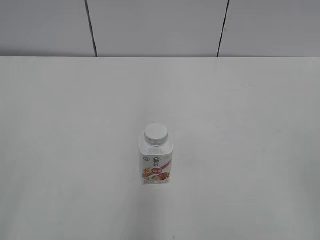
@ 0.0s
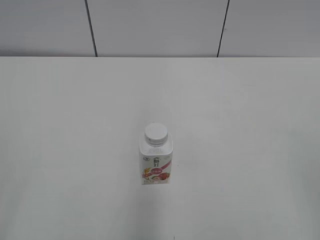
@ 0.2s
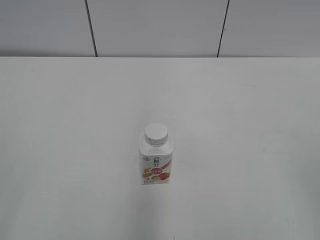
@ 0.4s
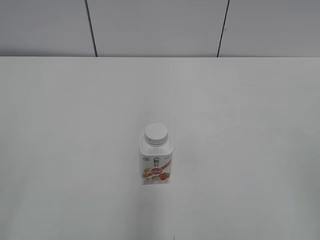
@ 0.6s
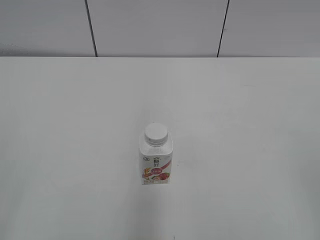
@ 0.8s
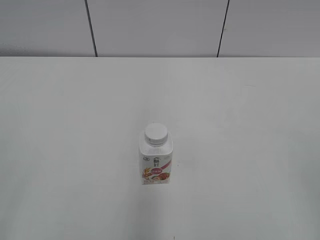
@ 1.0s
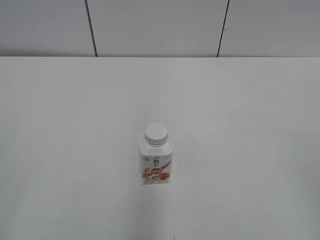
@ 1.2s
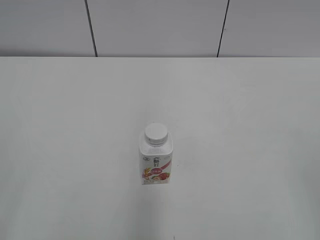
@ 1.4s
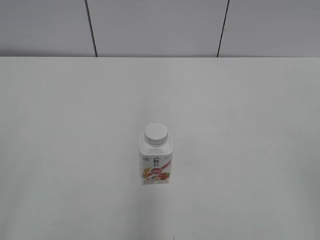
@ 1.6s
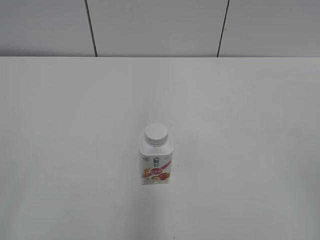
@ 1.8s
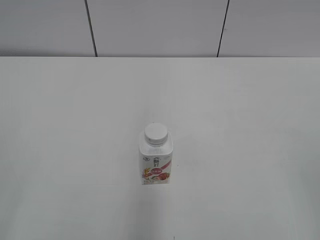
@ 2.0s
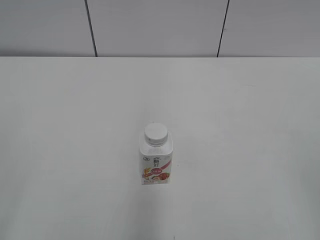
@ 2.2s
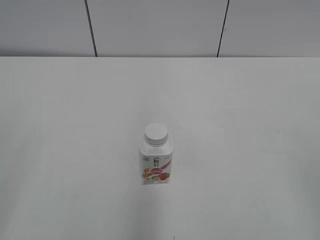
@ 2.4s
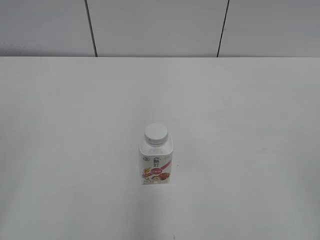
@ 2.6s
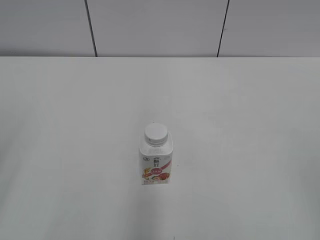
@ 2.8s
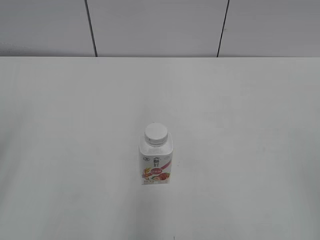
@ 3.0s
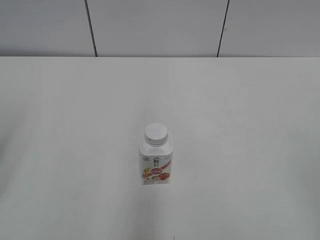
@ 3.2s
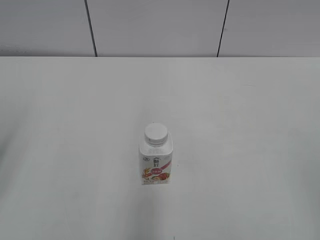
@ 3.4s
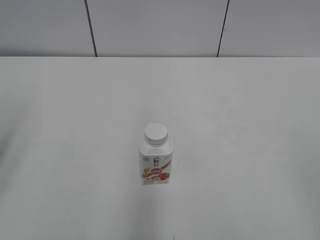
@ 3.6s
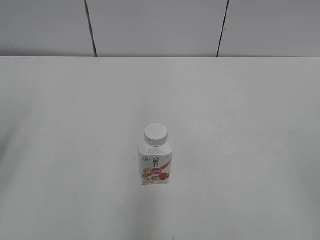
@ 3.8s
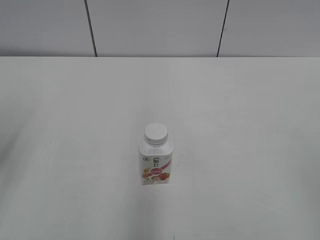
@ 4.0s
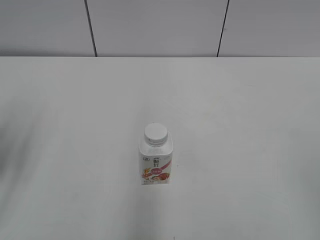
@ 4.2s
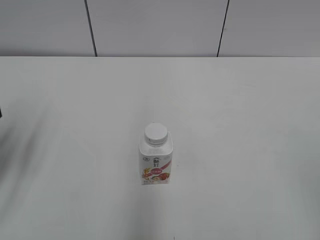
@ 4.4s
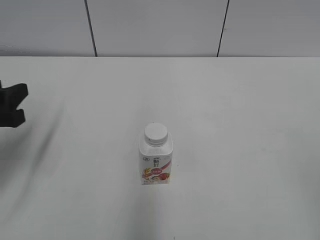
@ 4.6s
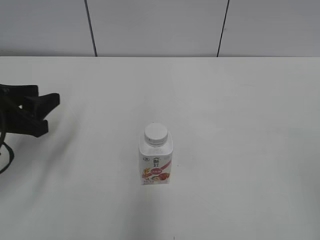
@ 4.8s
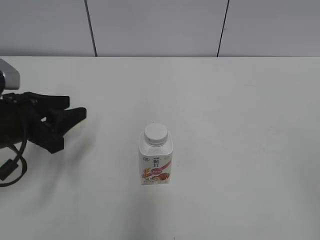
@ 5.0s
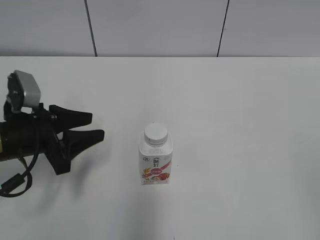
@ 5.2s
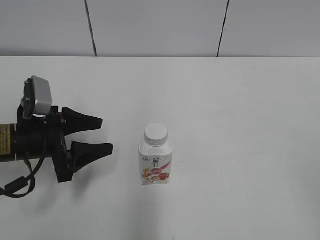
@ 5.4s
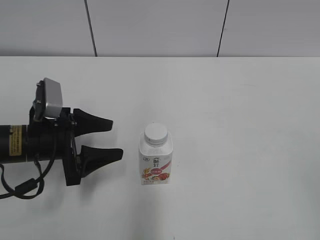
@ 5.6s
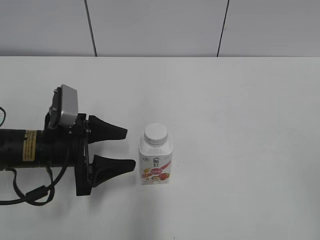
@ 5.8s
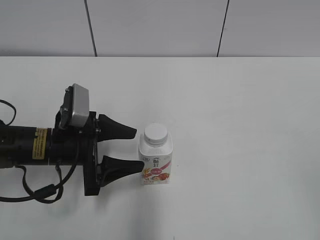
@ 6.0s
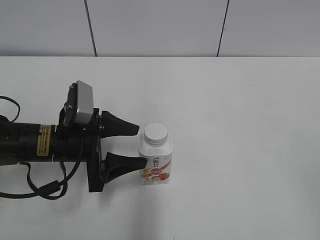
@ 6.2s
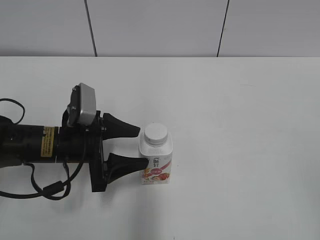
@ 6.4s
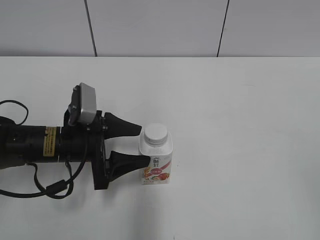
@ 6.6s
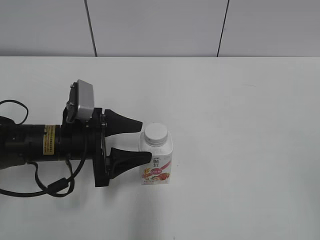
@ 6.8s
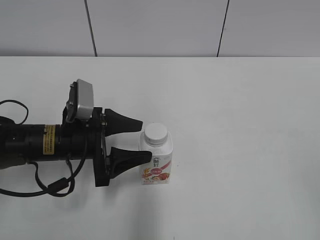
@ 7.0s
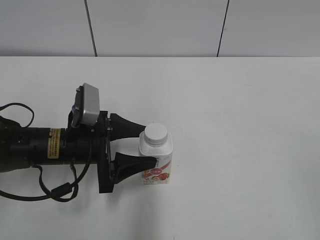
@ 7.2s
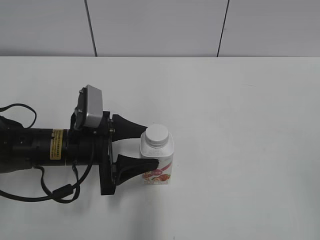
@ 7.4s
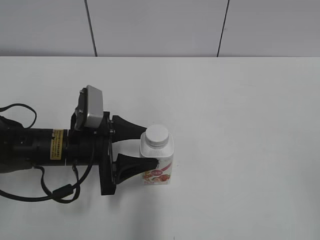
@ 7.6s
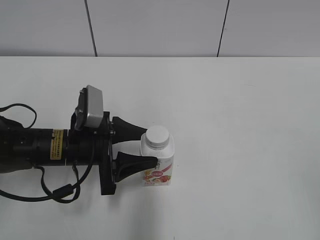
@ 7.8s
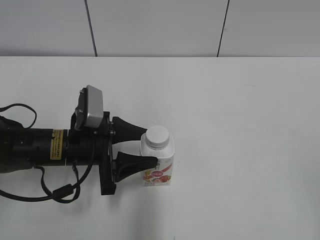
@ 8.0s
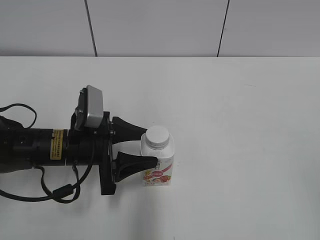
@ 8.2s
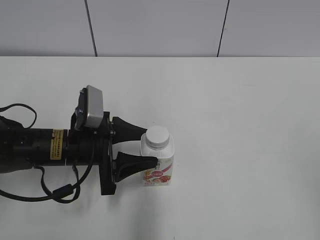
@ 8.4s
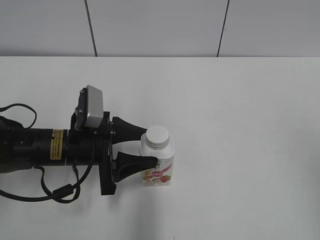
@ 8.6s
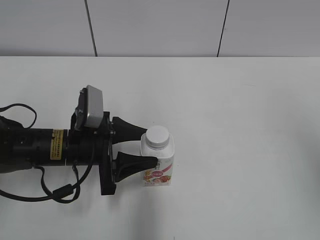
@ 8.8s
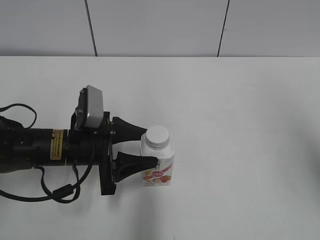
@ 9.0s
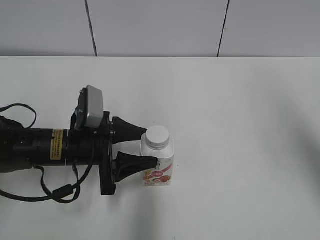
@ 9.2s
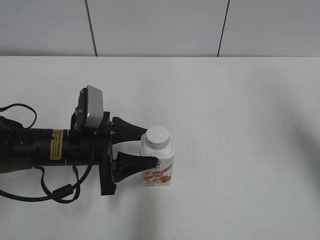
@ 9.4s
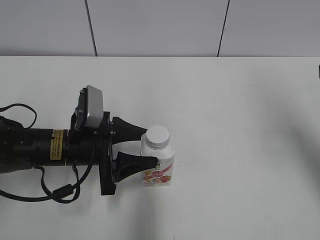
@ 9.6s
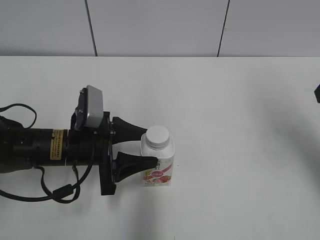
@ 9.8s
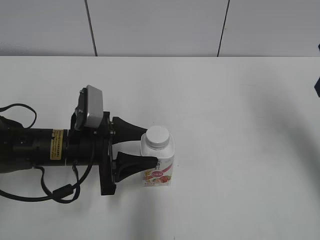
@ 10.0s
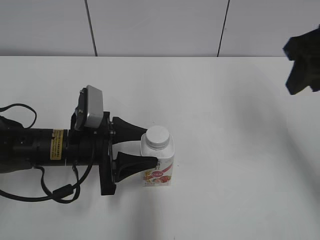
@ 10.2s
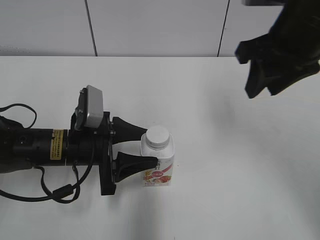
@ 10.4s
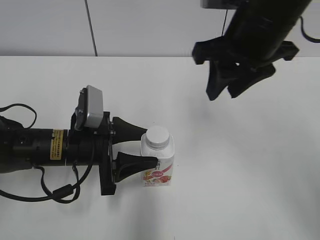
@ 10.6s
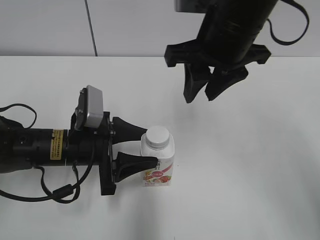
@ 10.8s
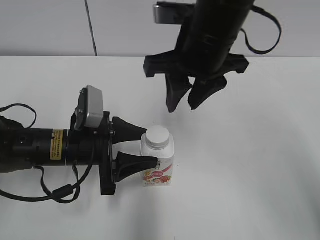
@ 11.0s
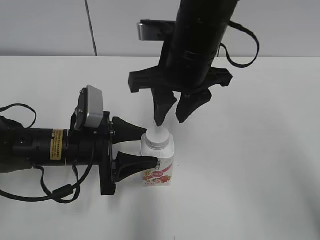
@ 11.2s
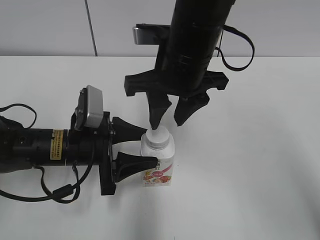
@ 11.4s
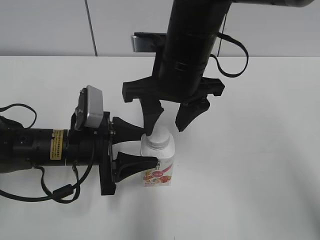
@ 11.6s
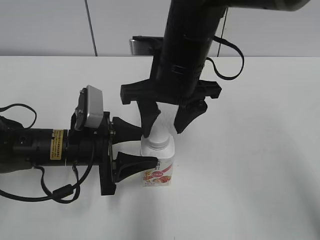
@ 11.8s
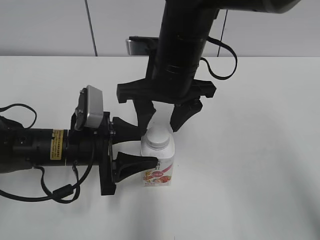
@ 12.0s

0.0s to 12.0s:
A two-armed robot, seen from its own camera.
Step, 0.0s to 8.2s: Grab the Yili Changqing with the left hand.
3.0s to 4.4s: The left gripper is displaced forward and downward by approximately 10 cm.
4.4s to 6.0s: The left gripper travels to the right, downward and forward by some 15 cm, and opens.
6.0s to 7.6s: The grippers stay close to where they were, moving slightly.
7.6s to 9.0s: The right gripper goes approximately 20 cm forward and upward, and closes its fingers.
9.0s to 10.4s: The right gripper travels forward, to the left and downward by about 20 cm, and closes up.
10.4s to 12.0s: The right gripper shifts about 15 cm to the left and downward, and opens up.

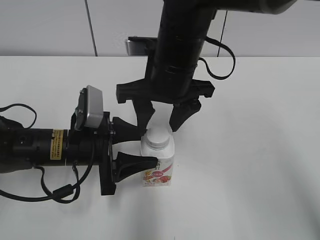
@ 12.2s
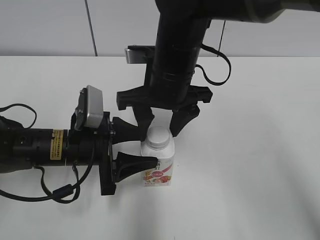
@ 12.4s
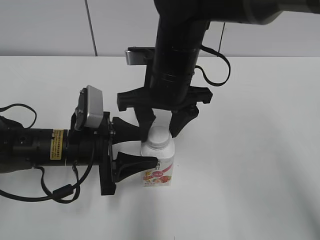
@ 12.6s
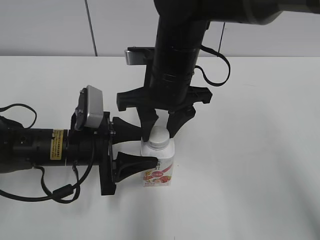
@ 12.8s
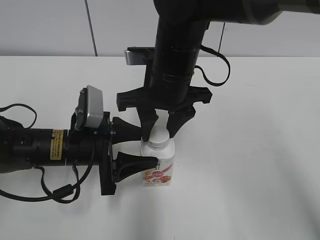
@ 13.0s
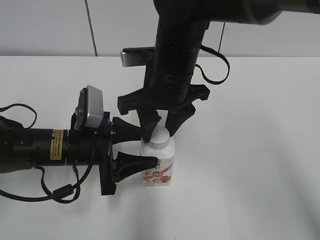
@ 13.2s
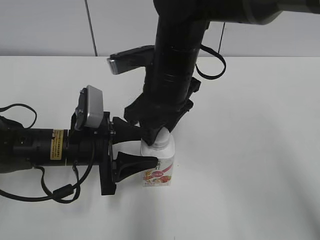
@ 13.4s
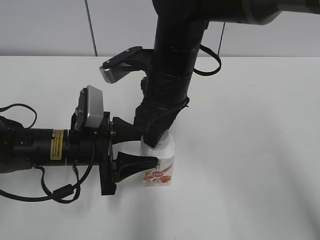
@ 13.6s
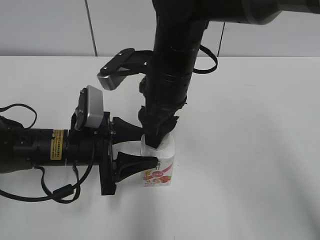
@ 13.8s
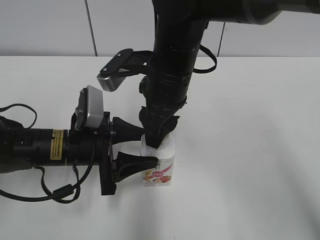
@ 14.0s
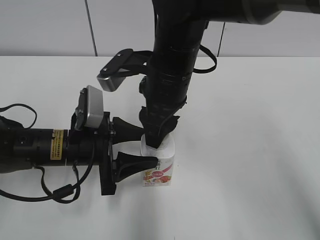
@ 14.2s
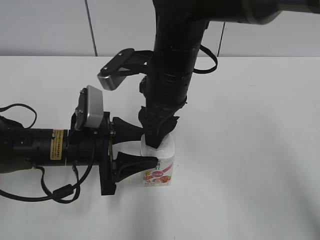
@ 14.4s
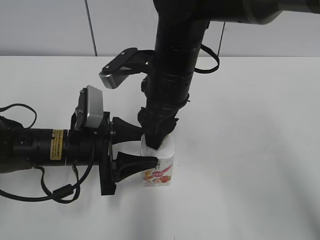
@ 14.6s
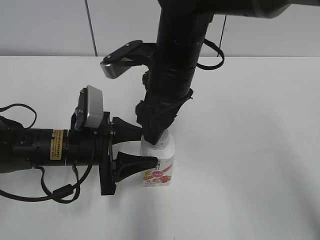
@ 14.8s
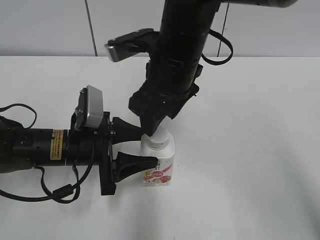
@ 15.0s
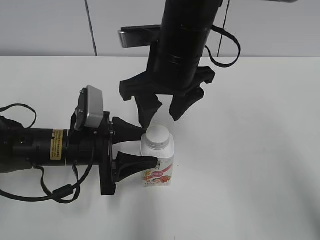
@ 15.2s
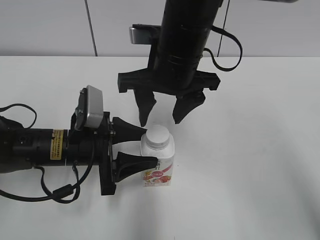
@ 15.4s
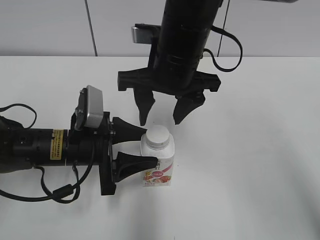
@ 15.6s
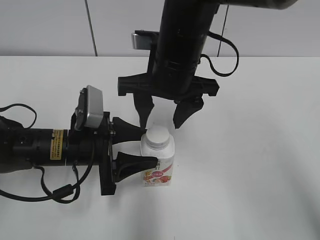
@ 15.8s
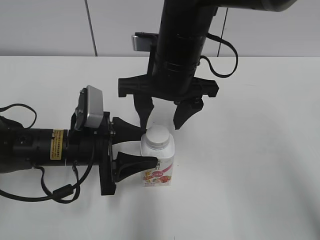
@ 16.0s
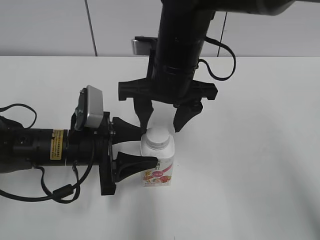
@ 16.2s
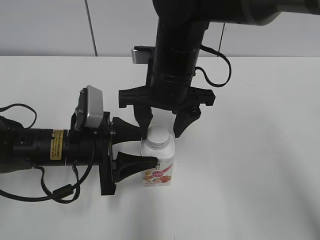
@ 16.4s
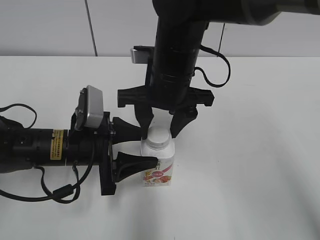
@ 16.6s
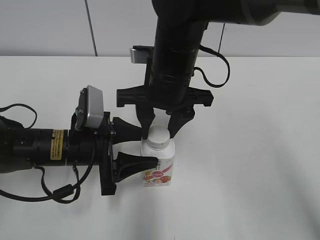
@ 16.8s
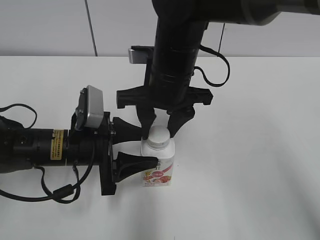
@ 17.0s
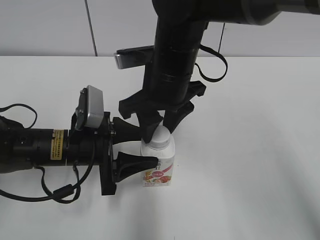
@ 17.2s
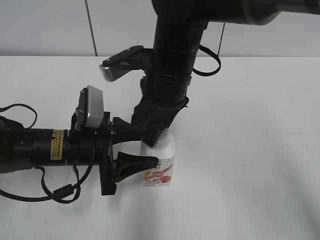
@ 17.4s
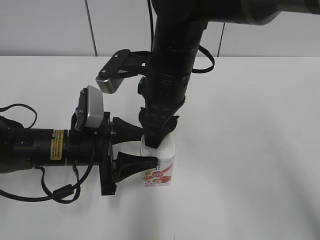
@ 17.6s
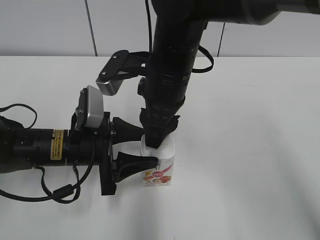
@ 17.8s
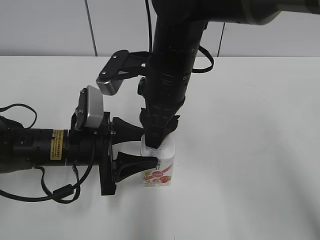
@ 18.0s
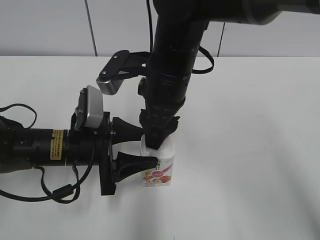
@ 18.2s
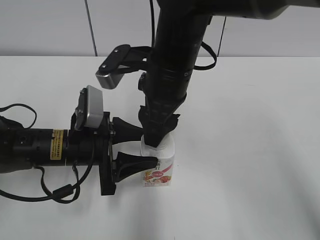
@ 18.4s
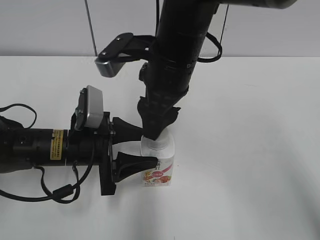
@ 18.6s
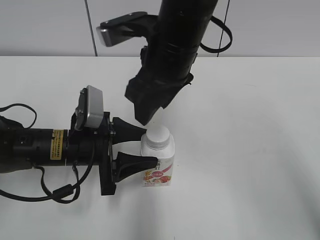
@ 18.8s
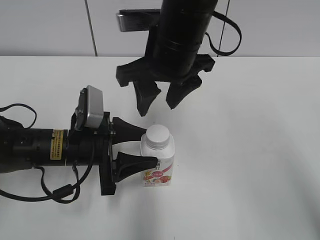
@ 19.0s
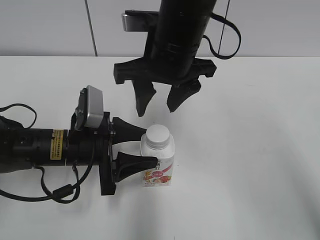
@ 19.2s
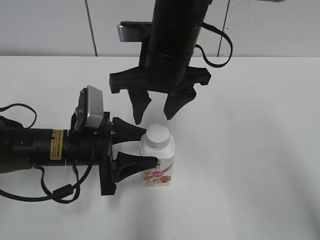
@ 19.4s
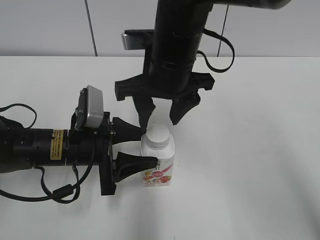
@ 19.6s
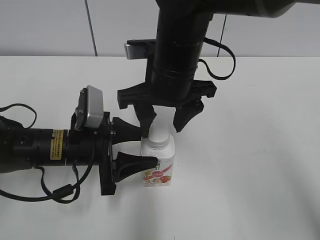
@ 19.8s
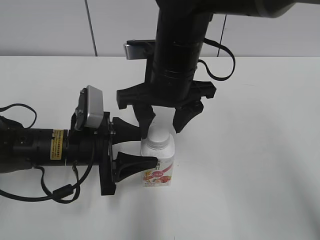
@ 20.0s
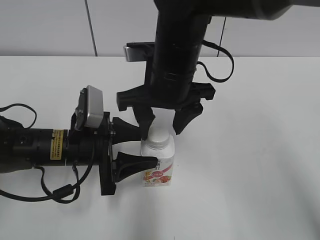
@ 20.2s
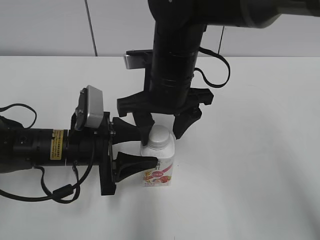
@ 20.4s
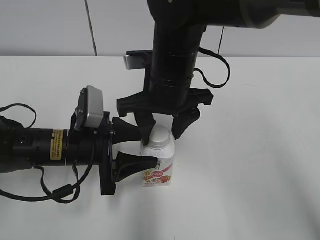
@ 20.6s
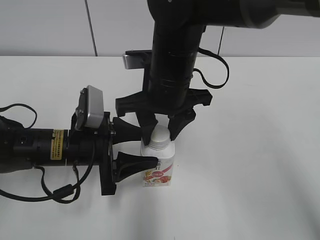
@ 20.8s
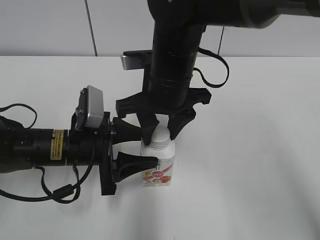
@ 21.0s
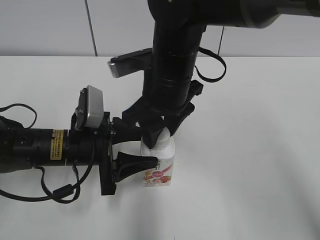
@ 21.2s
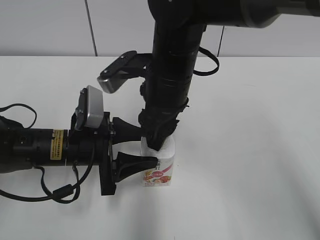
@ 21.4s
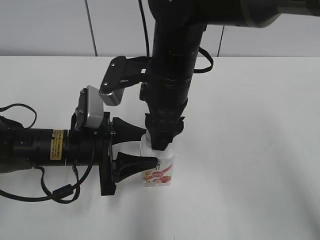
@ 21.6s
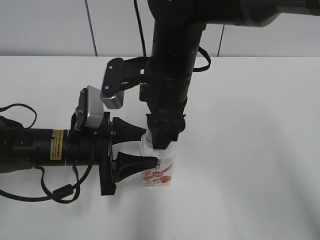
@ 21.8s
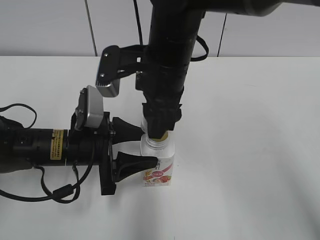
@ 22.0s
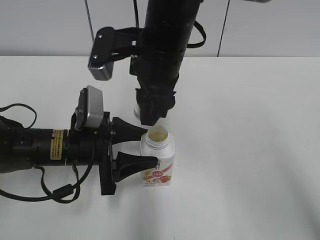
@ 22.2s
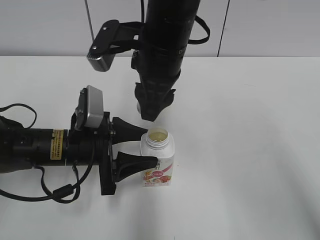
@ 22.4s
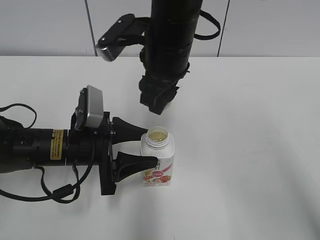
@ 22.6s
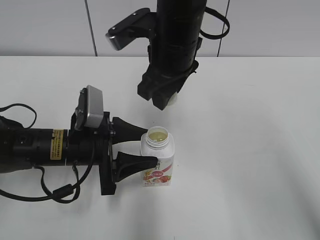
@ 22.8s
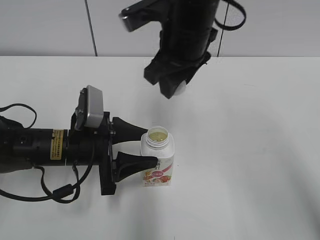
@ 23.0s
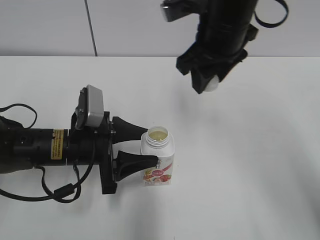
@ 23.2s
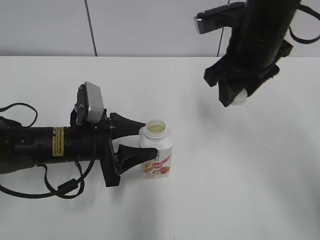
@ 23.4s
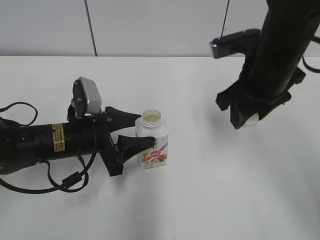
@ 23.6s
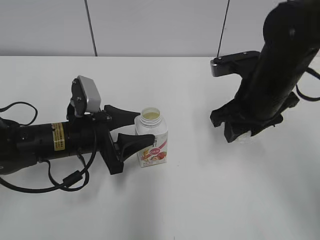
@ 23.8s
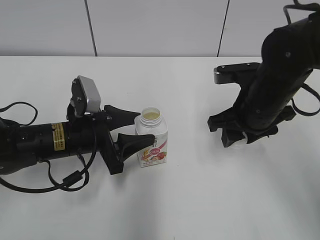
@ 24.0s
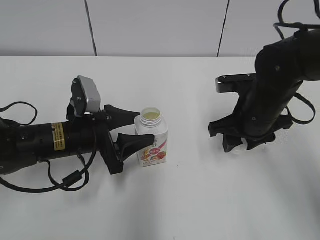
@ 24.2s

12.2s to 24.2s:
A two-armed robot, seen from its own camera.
Step, 12.2s to 21.8s: Twist the bottle cap with the right hand.
12.2s to 13.8s: The right gripper closes up.
13.8s to 15.2s: The right gripper opens up.
15.2s to 16.6s: The grippers move only a little.
18.2s to 19.8s: The right gripper opens its fingers.
19.8s to 21.2s: The right gripper closes.
22.6s to 24.2s: The right gripper moves to the right and downward, roughly 20 cm.
